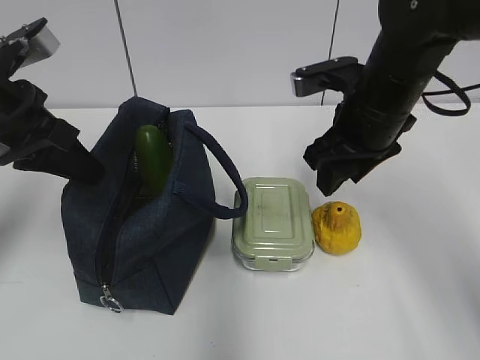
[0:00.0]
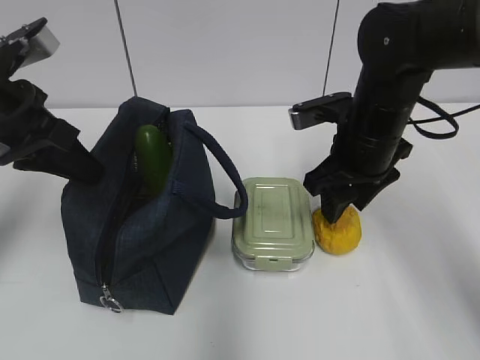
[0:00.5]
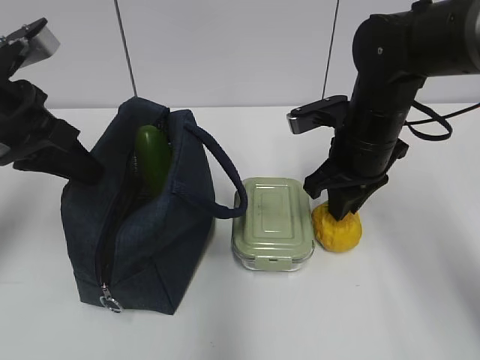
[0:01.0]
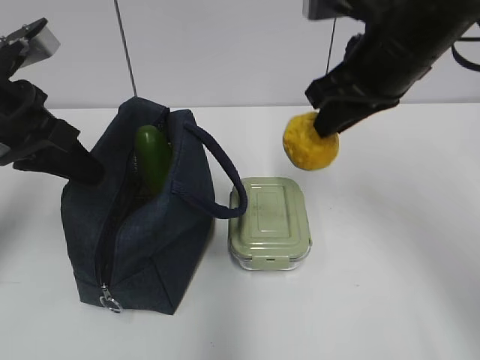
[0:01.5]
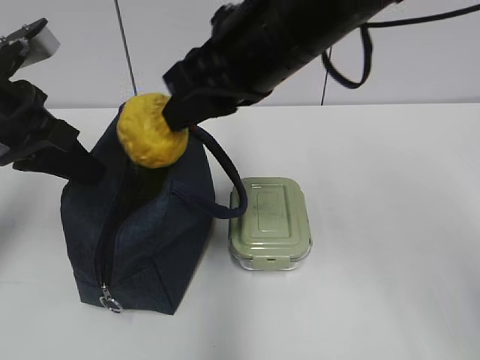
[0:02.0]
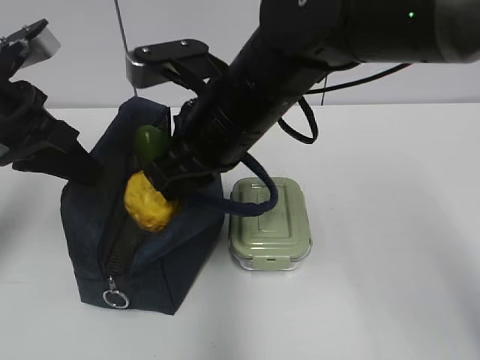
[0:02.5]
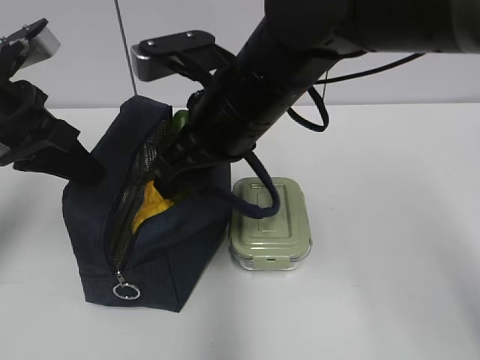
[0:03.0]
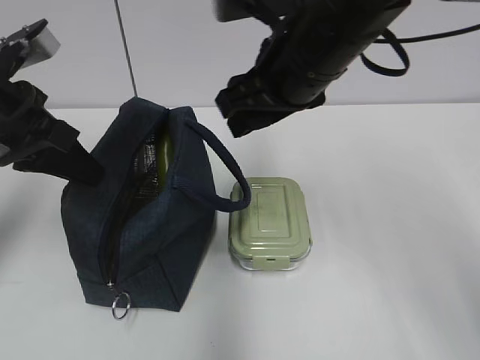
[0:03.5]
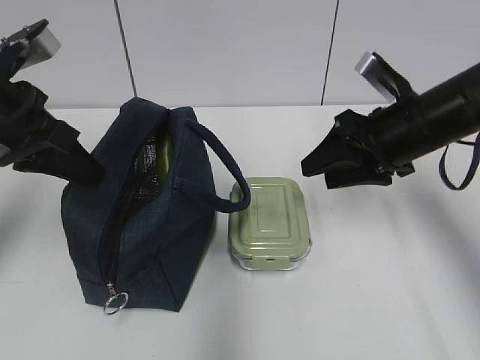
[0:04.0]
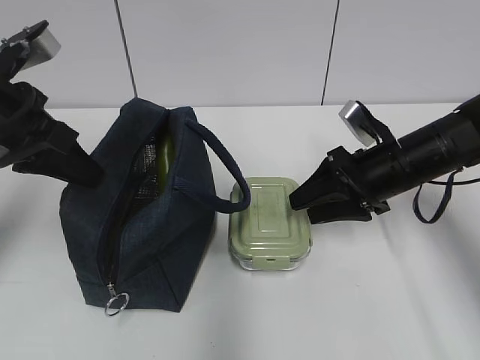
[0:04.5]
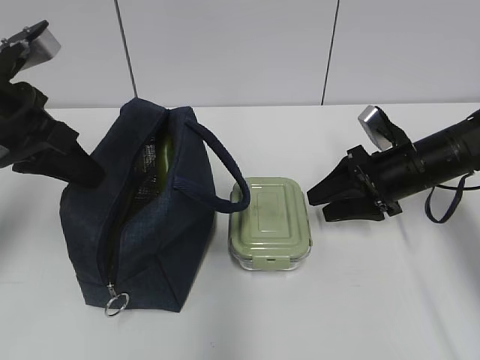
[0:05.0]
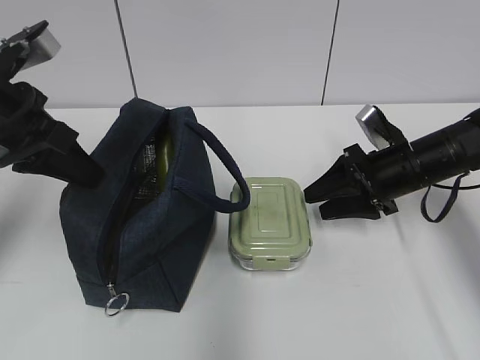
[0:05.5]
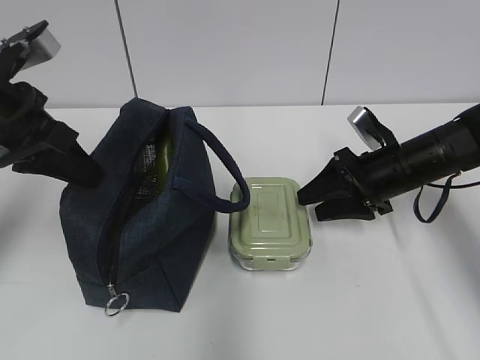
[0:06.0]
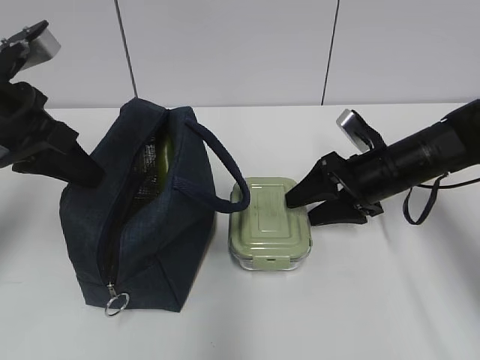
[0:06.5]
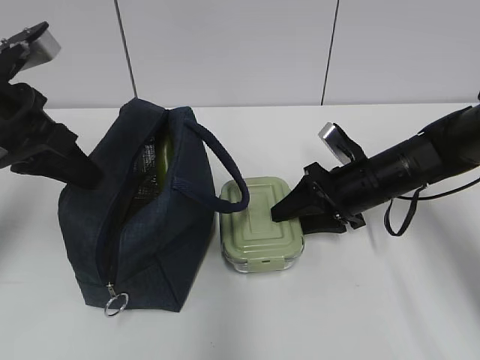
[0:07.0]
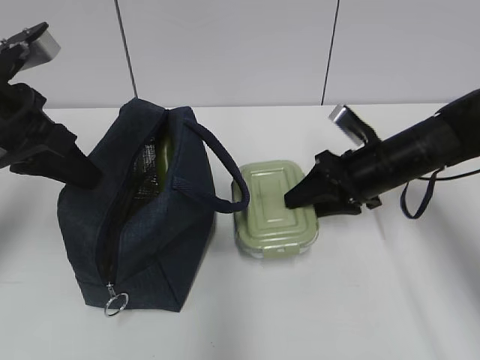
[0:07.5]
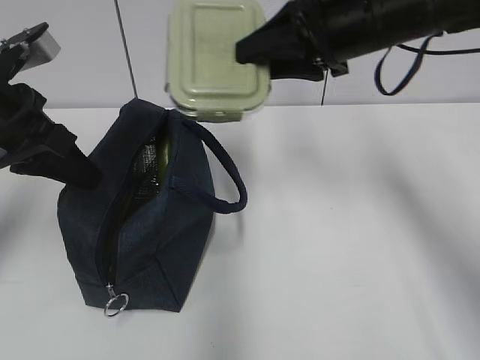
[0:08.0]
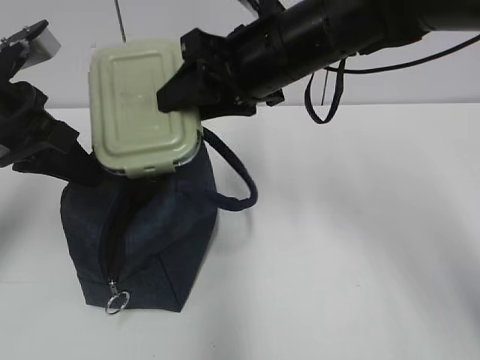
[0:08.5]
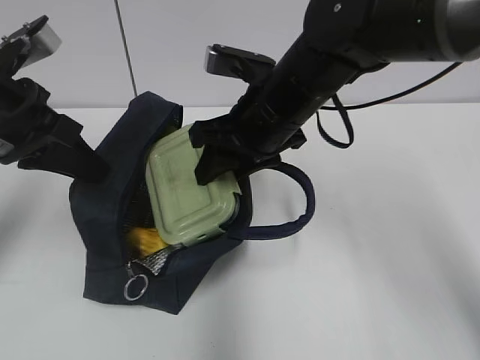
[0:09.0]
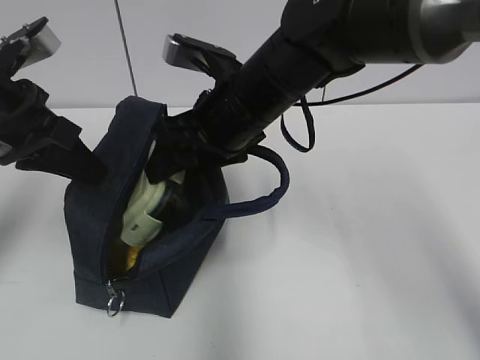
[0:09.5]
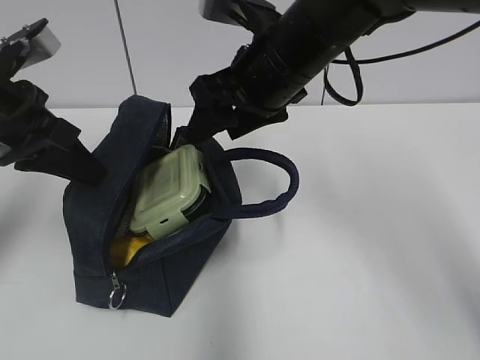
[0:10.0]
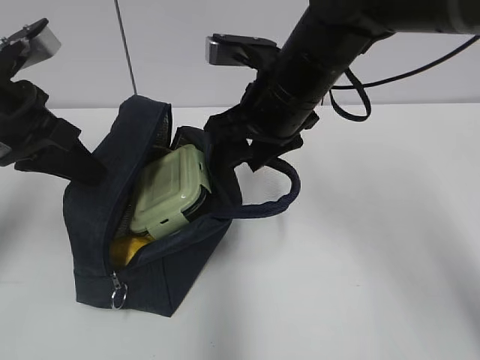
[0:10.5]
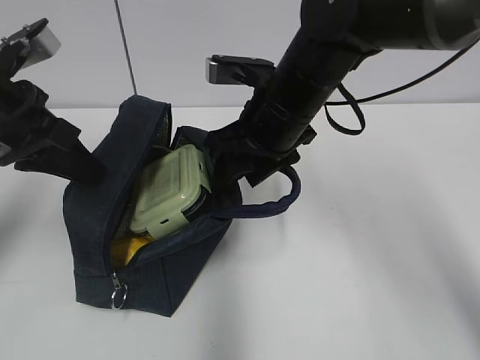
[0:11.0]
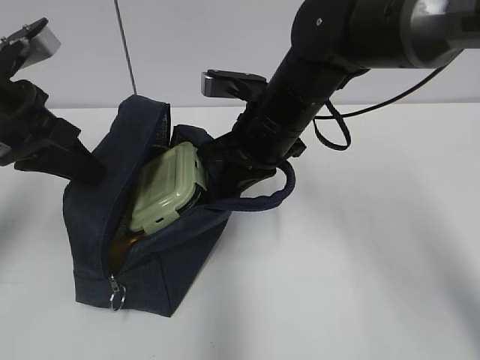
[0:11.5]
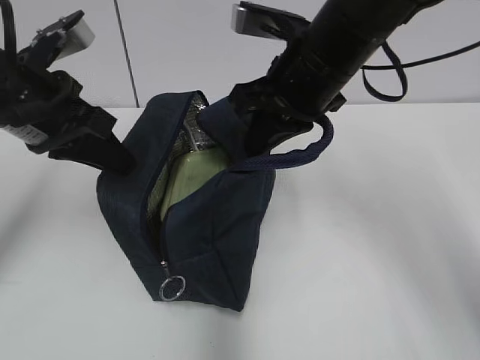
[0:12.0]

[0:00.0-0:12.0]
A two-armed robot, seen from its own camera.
Step, 0.0 to 1.0 s: Grab the pear with your right hand.
Step, 1.5 to 2.5 s: Place it into the bag with your right hand.
Step, 3.0 to 7.0 s: Grab the lunch box with your right hand.
Step, 10.0 to 11.5 s: Grab the lunch bag with your right hand.
0.0 to 2.0 s: The right gripper shifts roughly 15 cm to the left, upward and backward, and closes.
2.0 to 4.0 s: The right gripper moves to the right and downward, roughly 20 cm, and opens its fingers.
4.0 to 6.0 s: The right gripper shifts approximately 10 cm downward.
6.0 to 8.0 s: The right gripper heads upward and to the left, covering some 20 cm.
8.0 to 10.0 s: The right gripper is displaced to the left by about 10 cm.
10.0 to 12.0 s: The right gripper closes up.

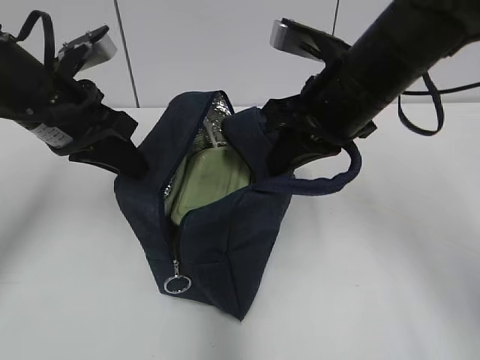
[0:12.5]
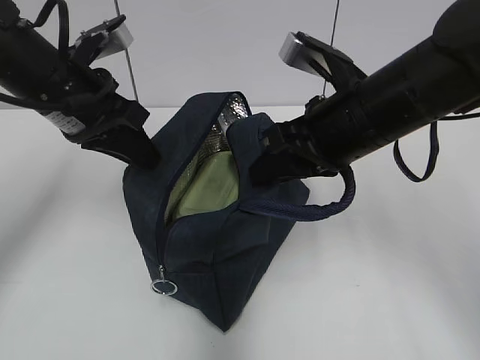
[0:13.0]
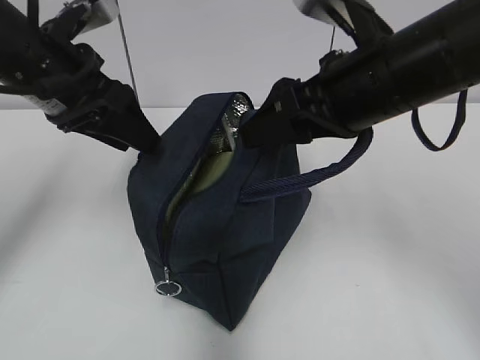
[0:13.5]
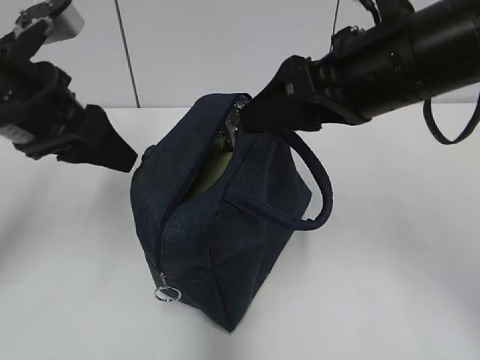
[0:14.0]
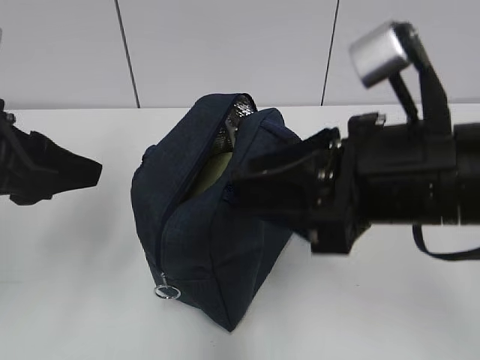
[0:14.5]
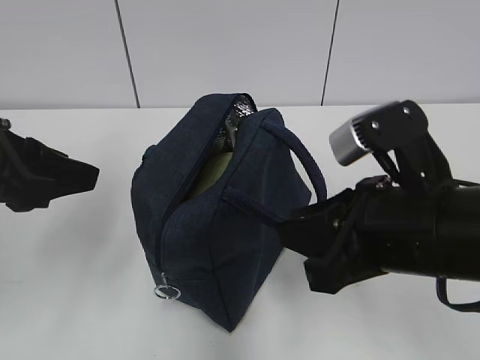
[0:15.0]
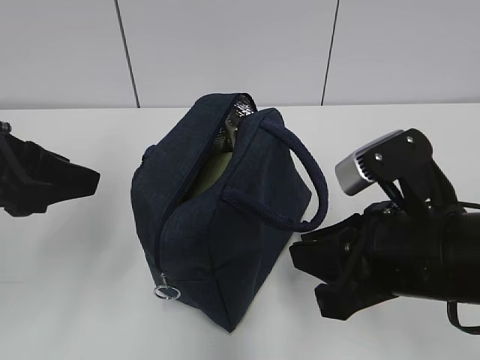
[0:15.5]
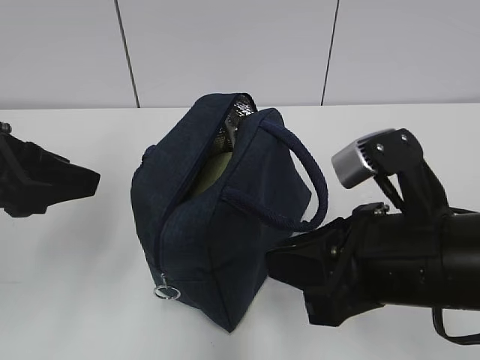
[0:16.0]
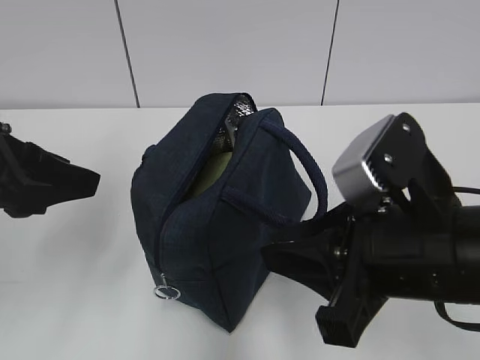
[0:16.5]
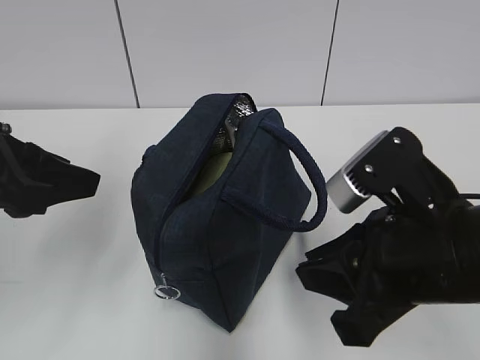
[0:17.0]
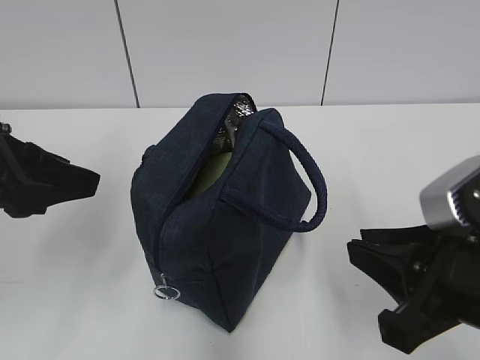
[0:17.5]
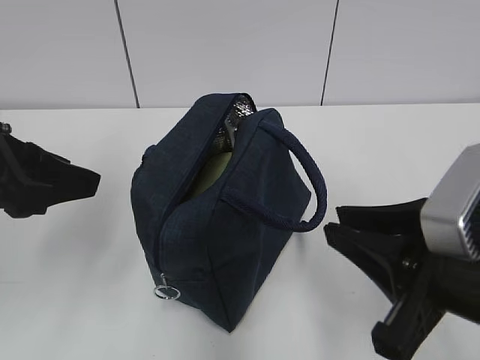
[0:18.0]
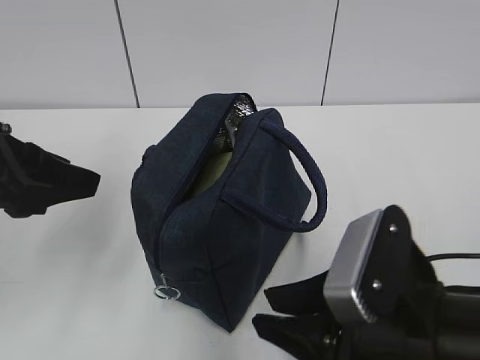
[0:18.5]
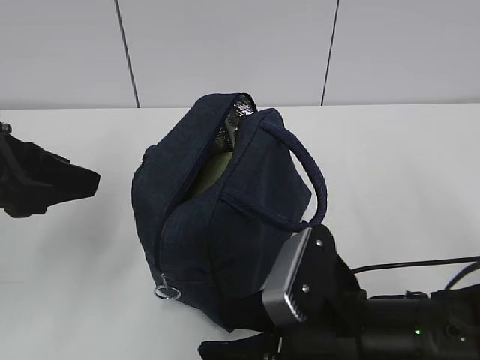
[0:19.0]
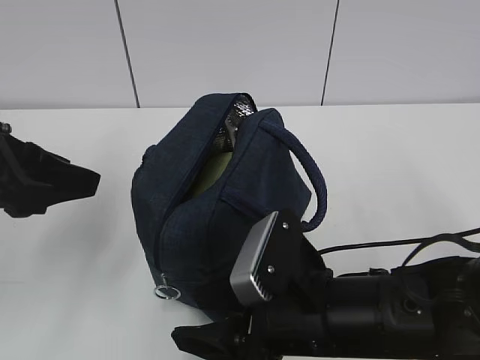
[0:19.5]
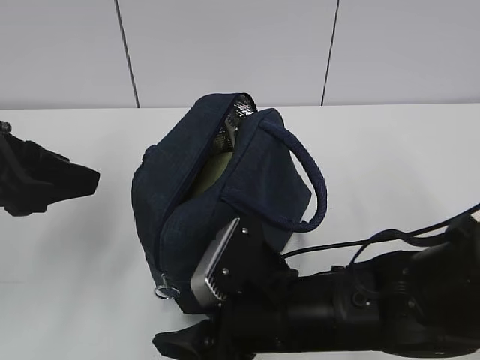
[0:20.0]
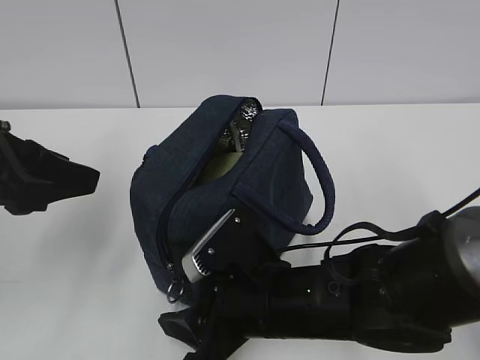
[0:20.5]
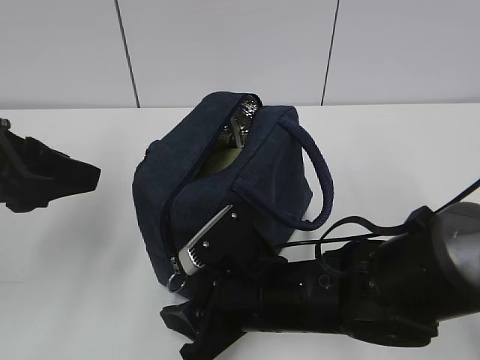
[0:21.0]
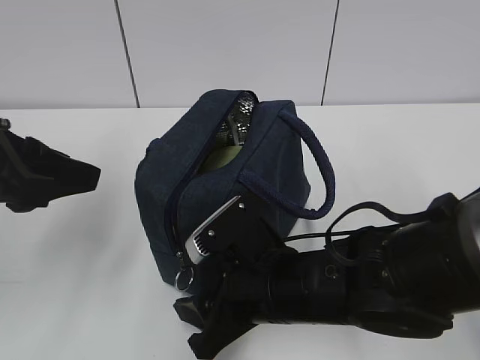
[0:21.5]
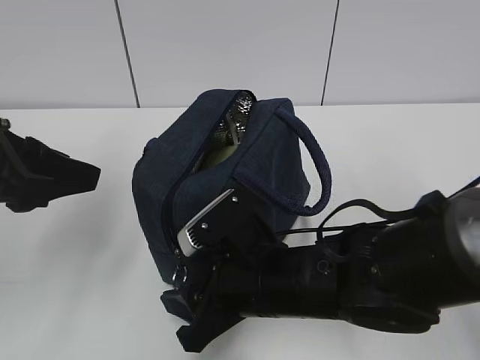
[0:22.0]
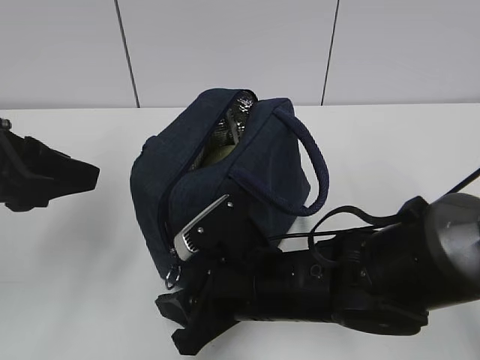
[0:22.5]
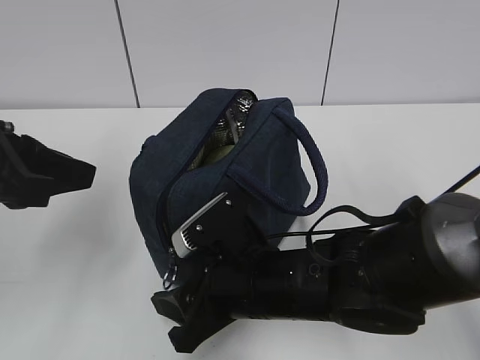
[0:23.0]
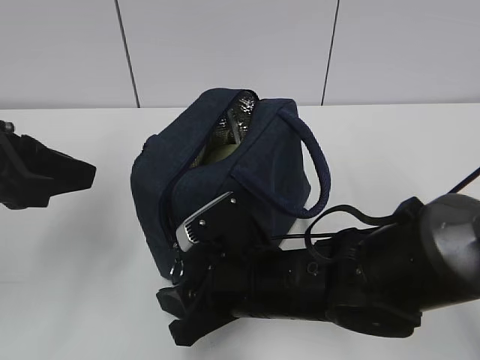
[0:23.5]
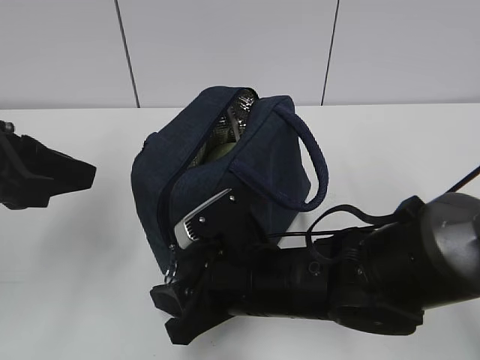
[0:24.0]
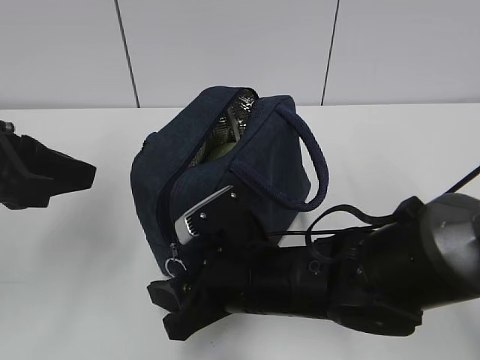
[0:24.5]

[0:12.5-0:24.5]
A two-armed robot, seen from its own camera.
12.5 to 14.5 s: Both grippers travel together backward, roughly 10 cm. The left gripper opens up, while the right gripper opens.
16.5 to 18.5 s: The right gripper heads downward, covering roughly 5 cm.
18.5 to 20.5 s: The right gripper shifts some 15 cm to the left, forward and downward.
20.5 to 24.5 s: There are only small adjustments of the grippers.

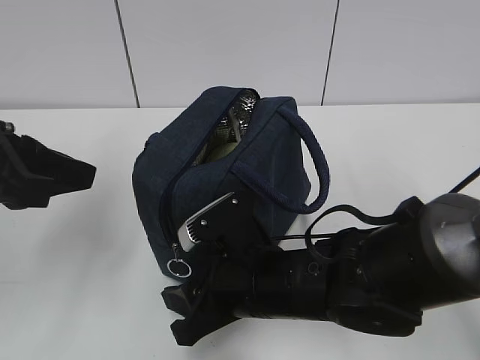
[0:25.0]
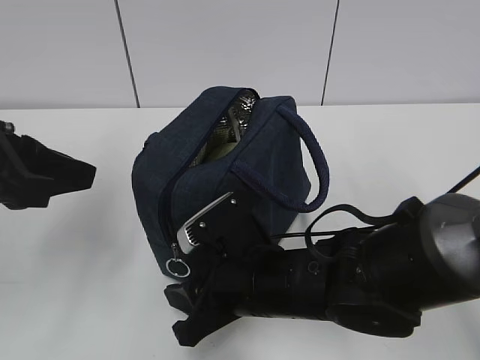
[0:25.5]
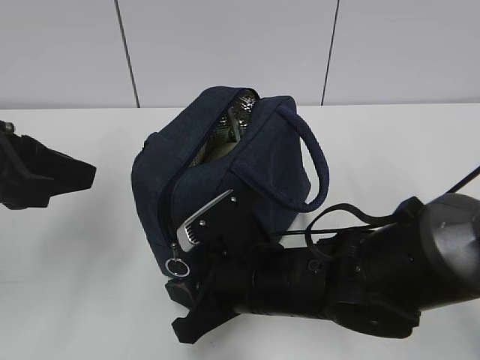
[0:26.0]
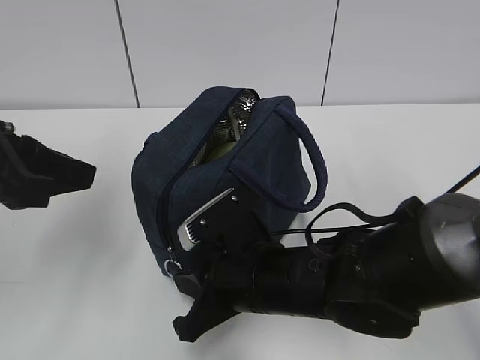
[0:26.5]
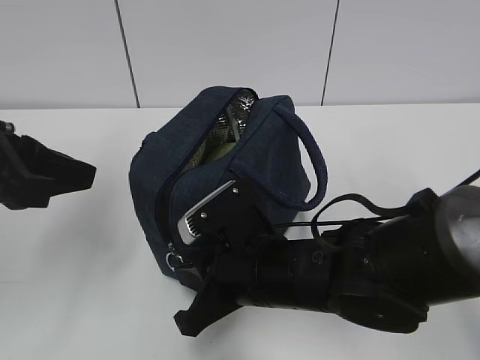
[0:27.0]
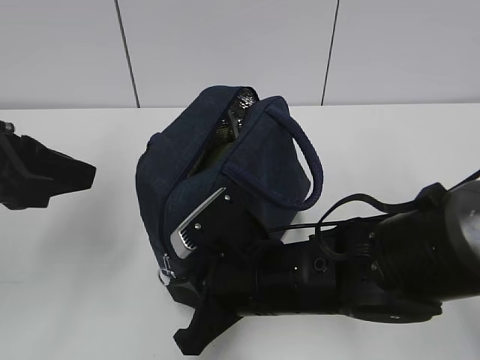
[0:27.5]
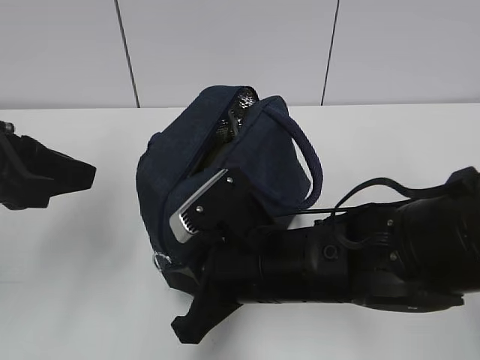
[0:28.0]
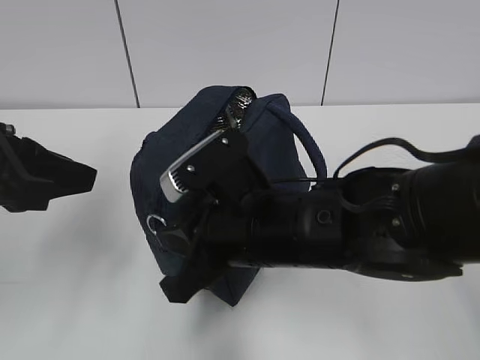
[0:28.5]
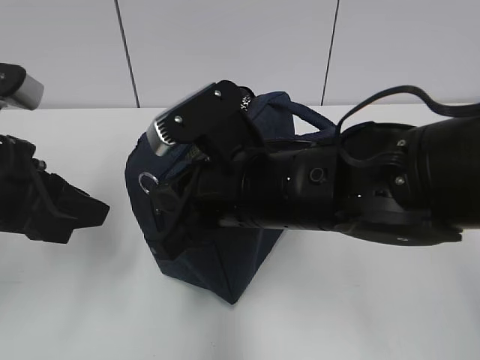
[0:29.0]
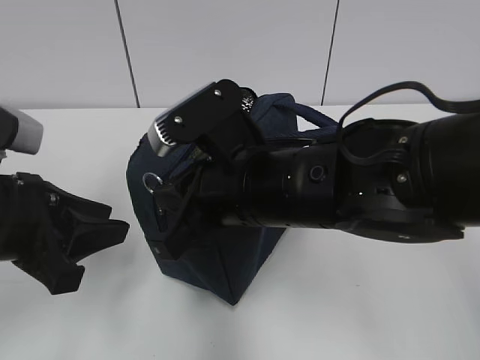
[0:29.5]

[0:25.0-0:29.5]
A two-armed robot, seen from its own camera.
25.0 to 27.0 s: The right gripper closes up.
27.0 to 29.5 s: The right gripper heads upward, covering roughly 10 cm. The left gripper shifts approximately 5 cm downward.
